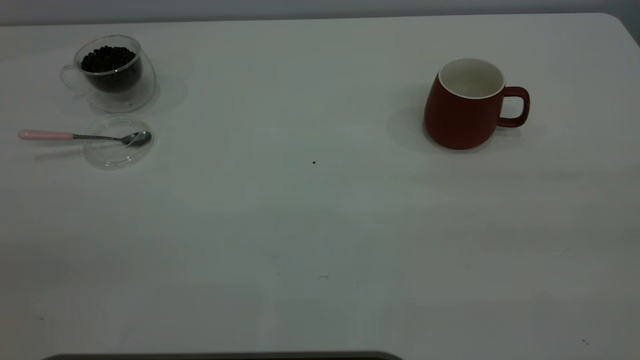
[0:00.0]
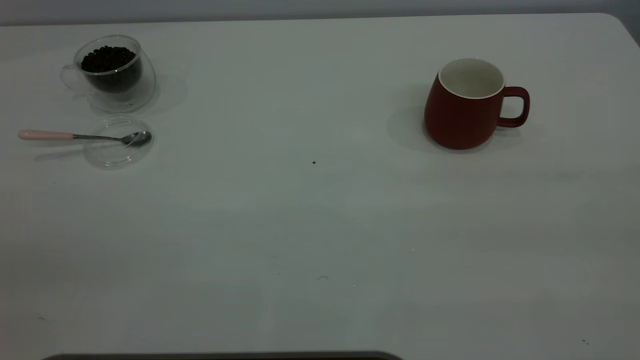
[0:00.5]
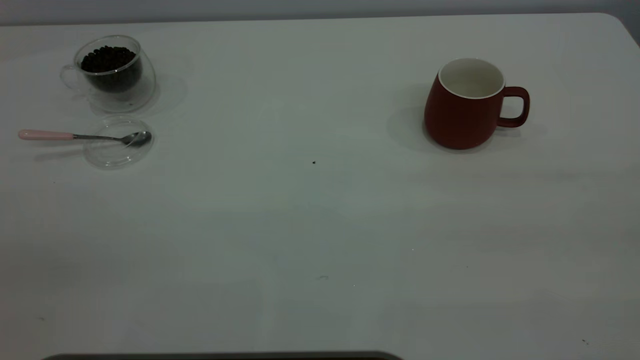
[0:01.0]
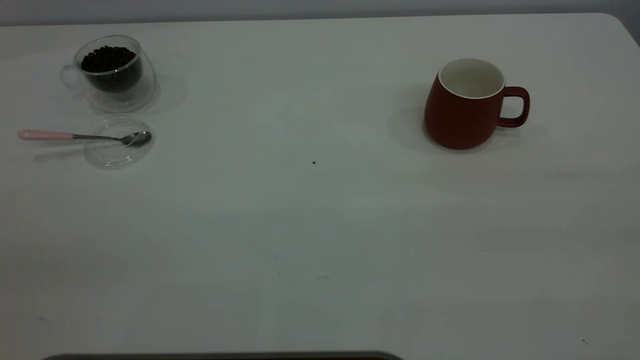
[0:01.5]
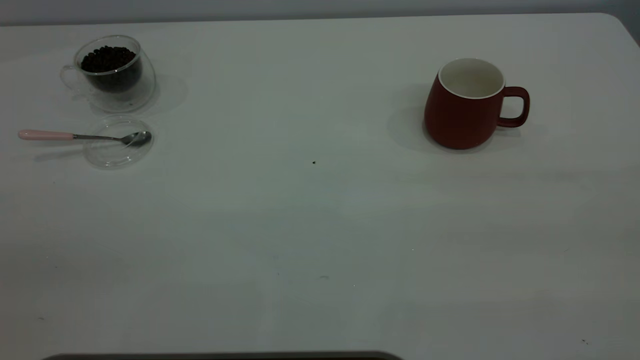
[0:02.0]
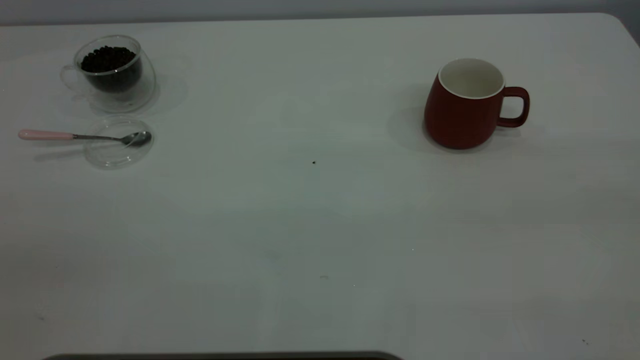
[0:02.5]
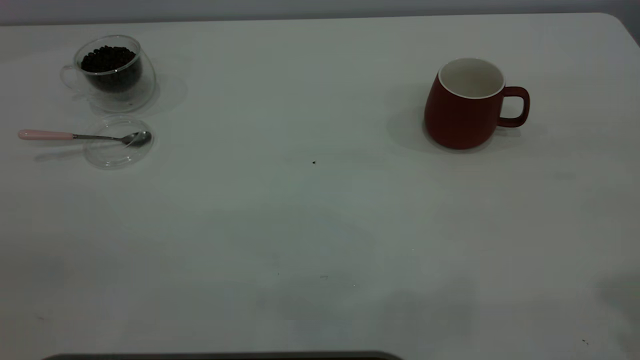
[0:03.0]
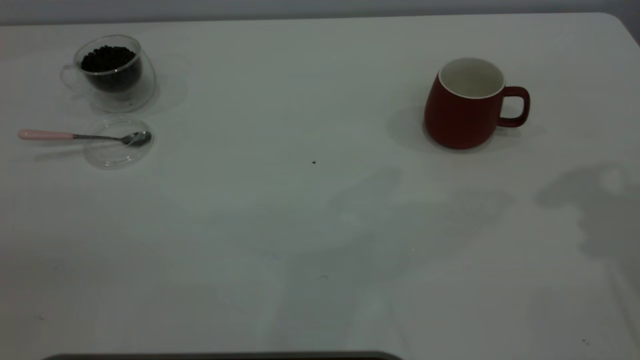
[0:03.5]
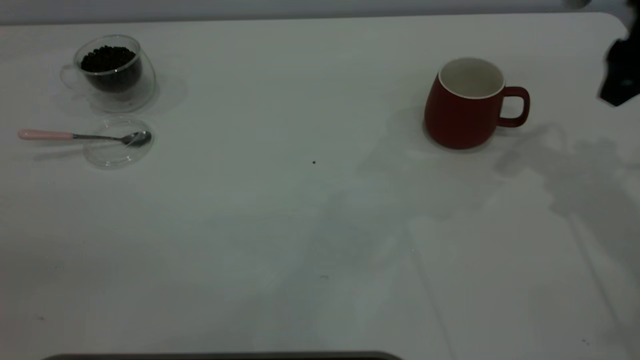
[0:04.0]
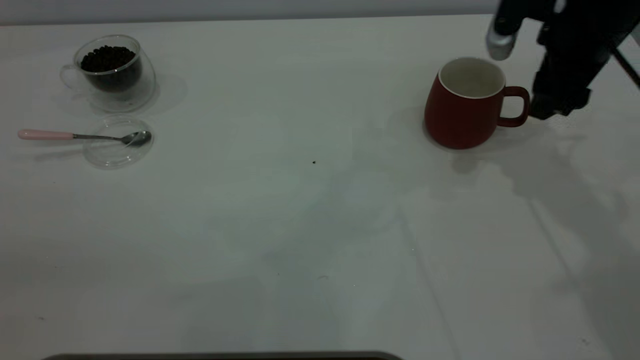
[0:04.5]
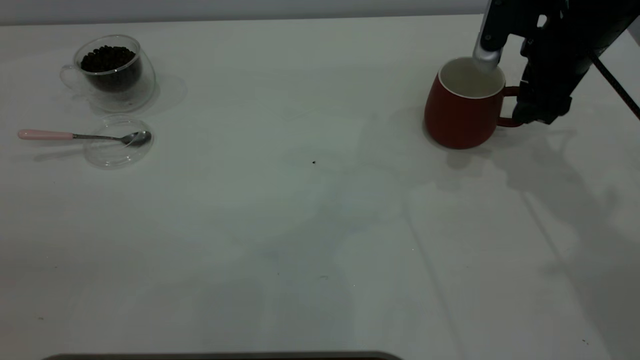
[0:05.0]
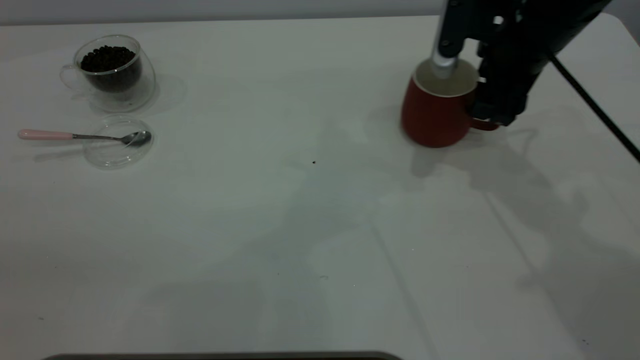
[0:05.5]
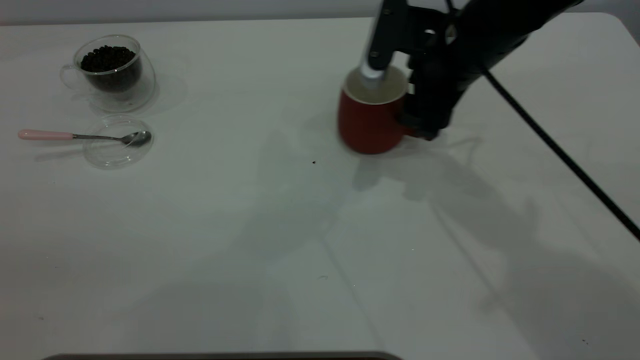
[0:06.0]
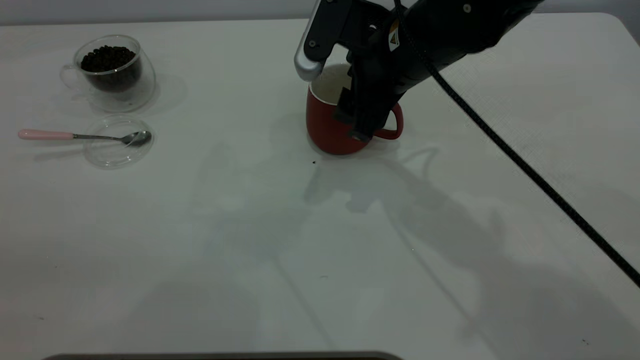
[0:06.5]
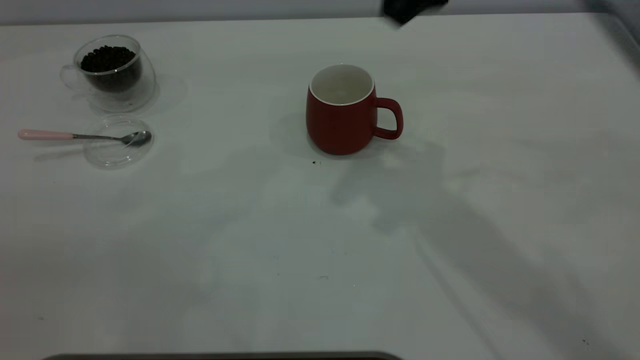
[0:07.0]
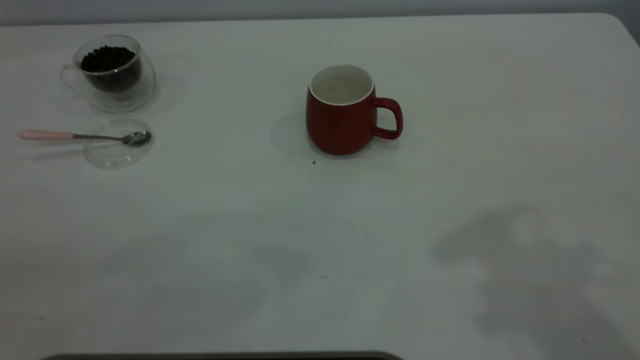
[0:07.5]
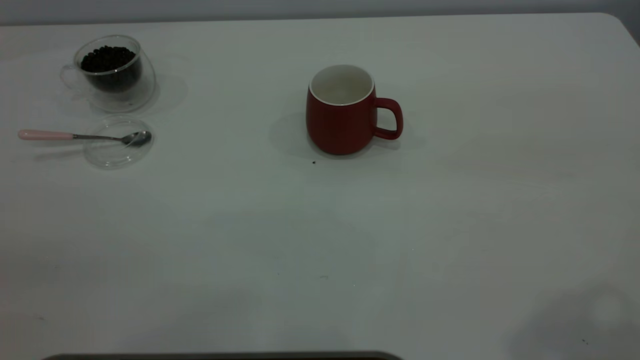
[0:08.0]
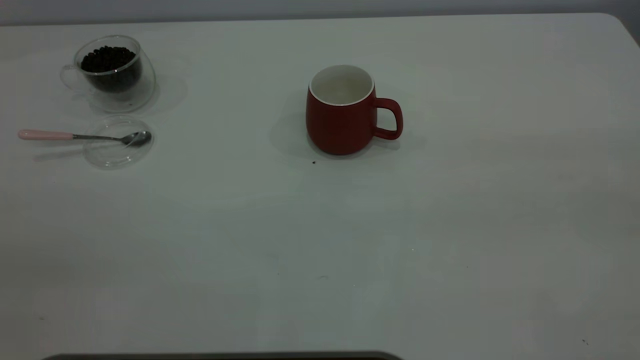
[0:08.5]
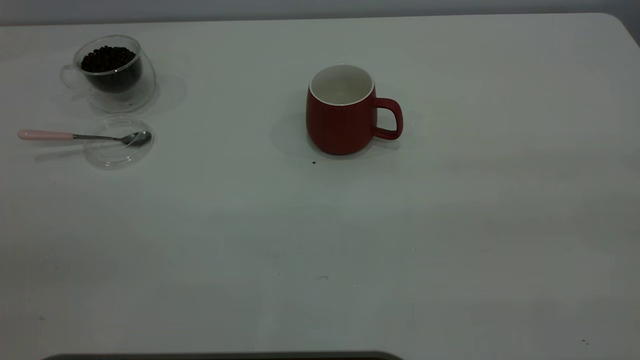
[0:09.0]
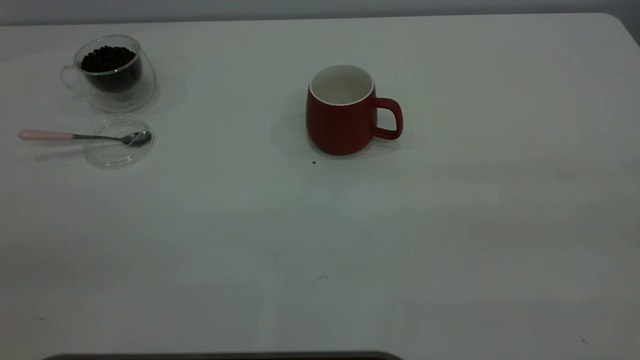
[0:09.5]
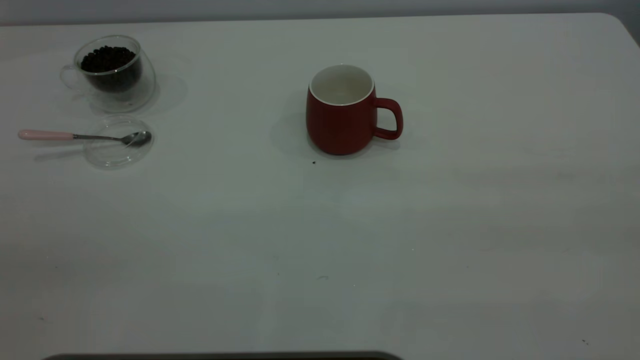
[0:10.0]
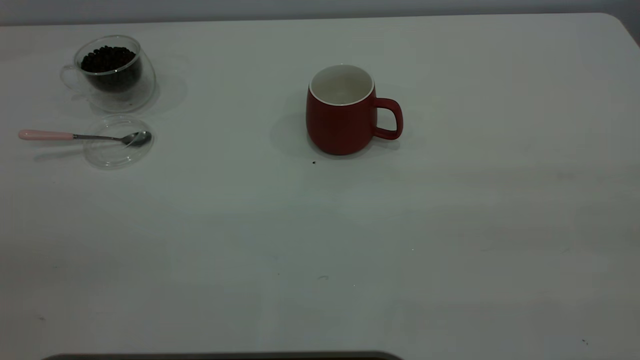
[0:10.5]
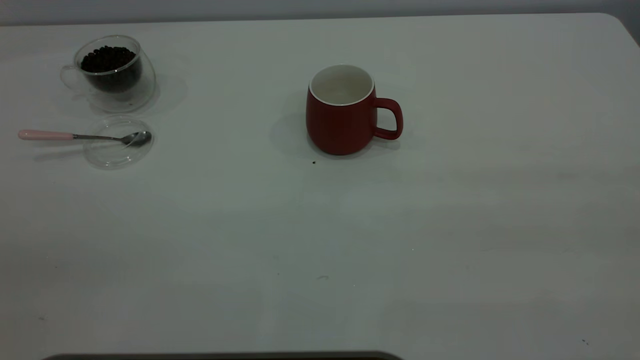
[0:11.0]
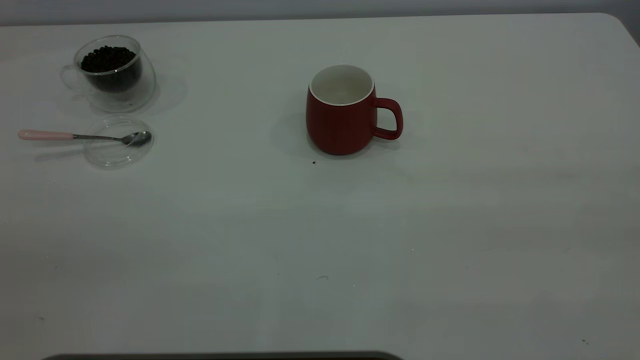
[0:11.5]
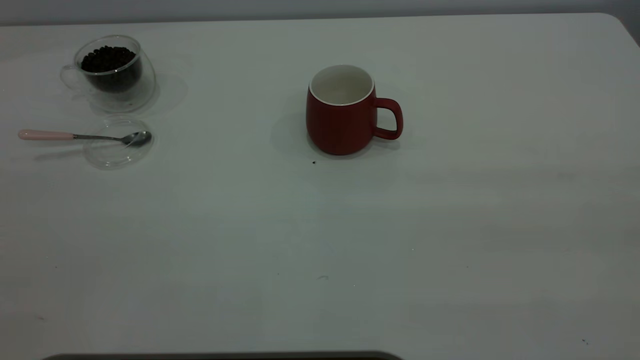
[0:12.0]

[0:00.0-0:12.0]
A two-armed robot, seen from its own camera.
Task of the whole recording: the right gripper place the red cup in the center of the table, the left gripper take the pink spoon from the cup lid and scoop out the coffee beans from the coffee cup and put them into the red cup, the left gripper put the spoon back into the cup lid.
Step, 0:00.0 to 0:06.5: Move the cup to the center of view.
0:00.0 to 0:02.0: Both grippers stay about where they are.
0:02.0 to 0:04.0: The right gripper travels forward and downward by approximately 40 cm, and opens its fingers.
0:04.0 to 0:06.0: The right gripper moves to the left and downward, some 20 cm.
0:06.0 to 0:08.0: The right gripper shifts approximately 40 cm upward, backward and to the right.

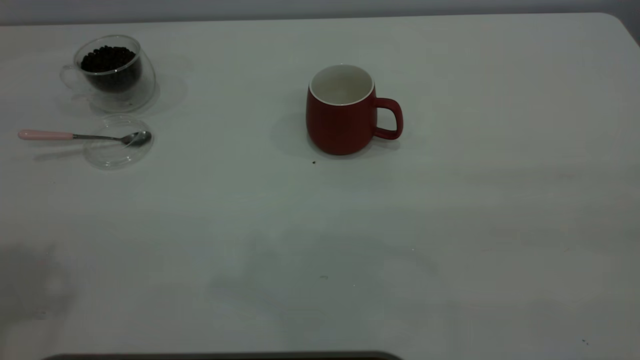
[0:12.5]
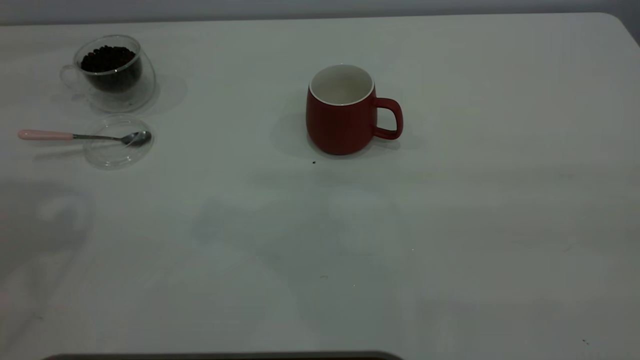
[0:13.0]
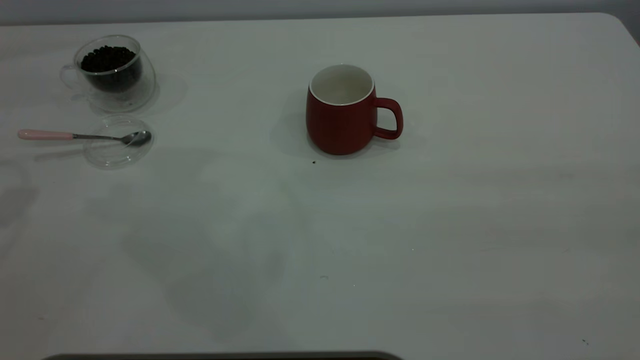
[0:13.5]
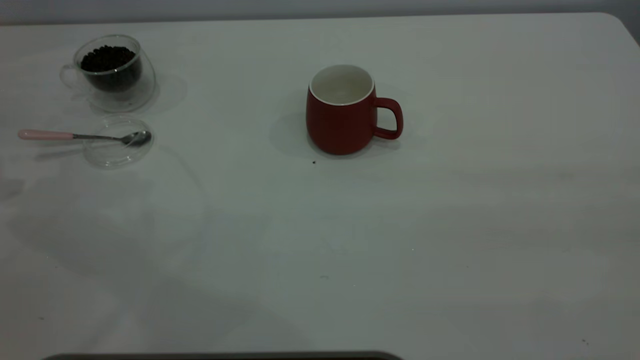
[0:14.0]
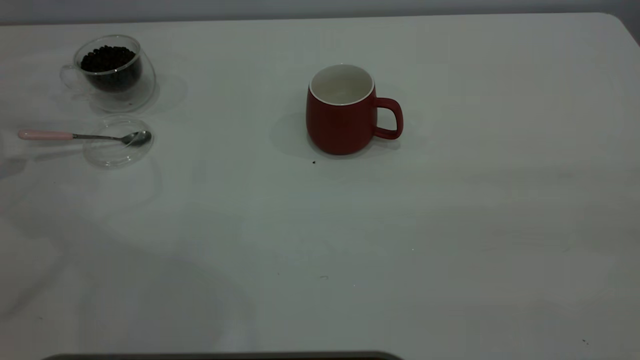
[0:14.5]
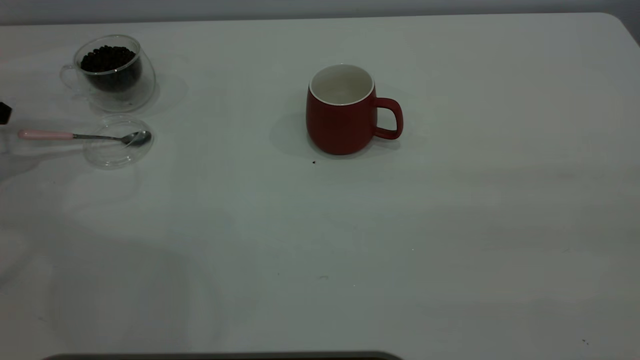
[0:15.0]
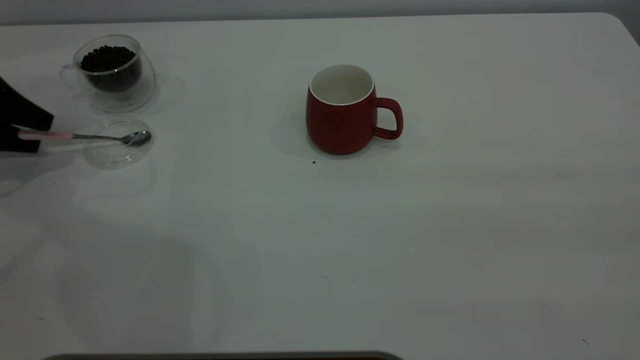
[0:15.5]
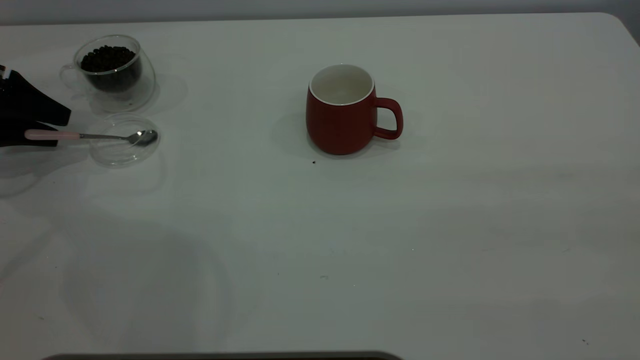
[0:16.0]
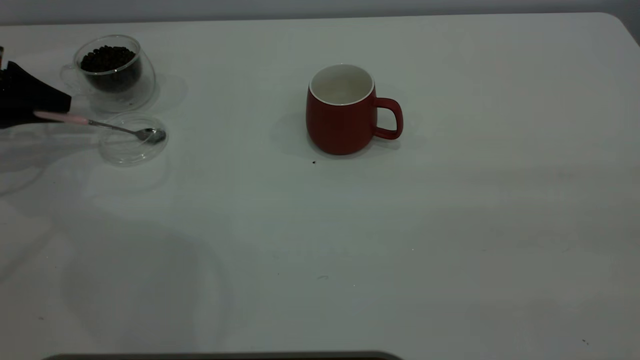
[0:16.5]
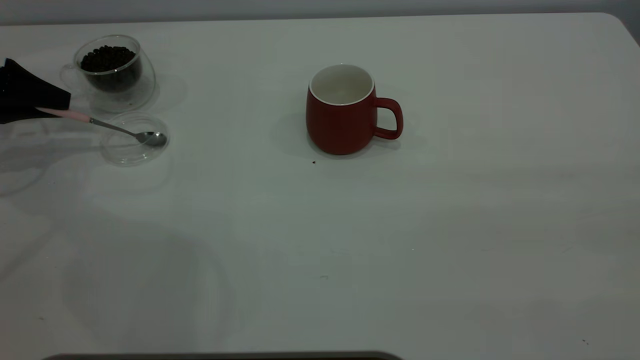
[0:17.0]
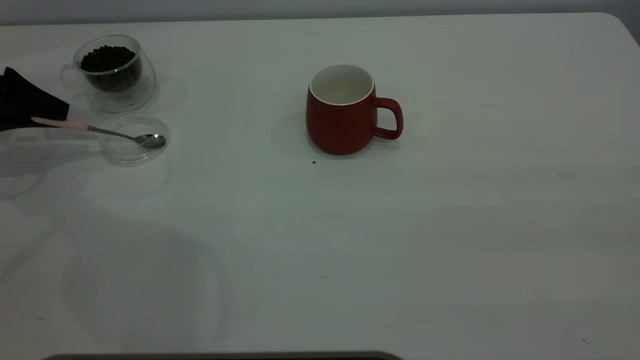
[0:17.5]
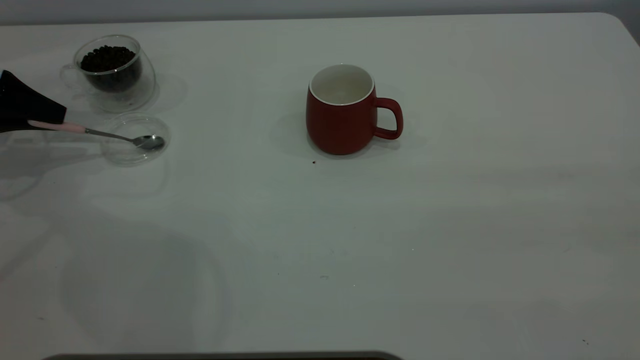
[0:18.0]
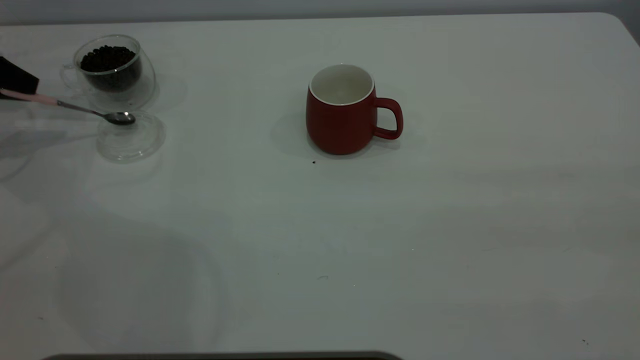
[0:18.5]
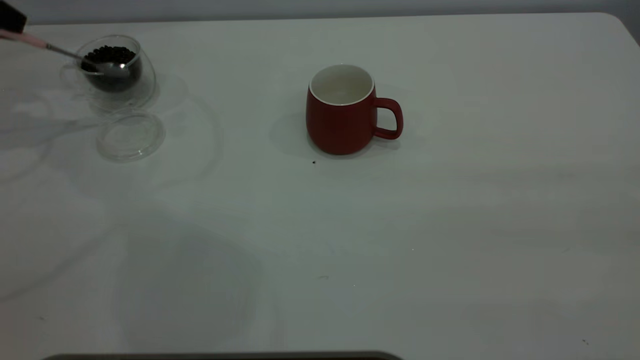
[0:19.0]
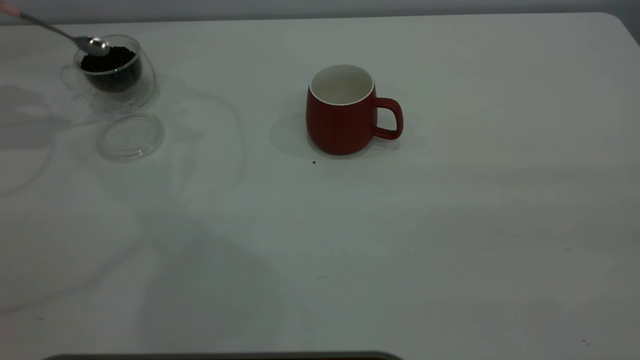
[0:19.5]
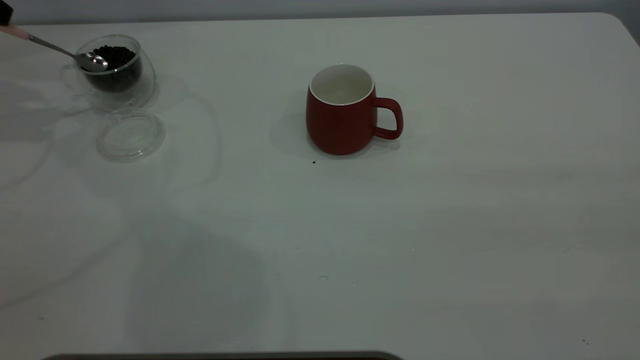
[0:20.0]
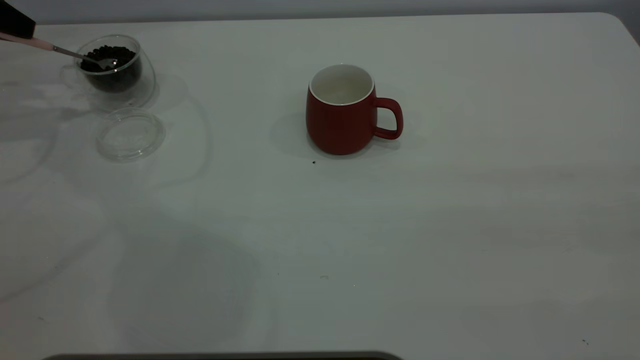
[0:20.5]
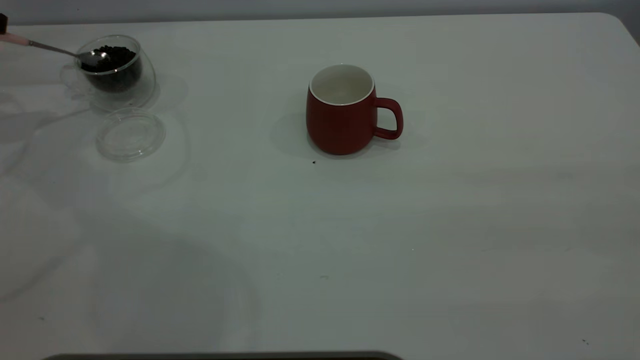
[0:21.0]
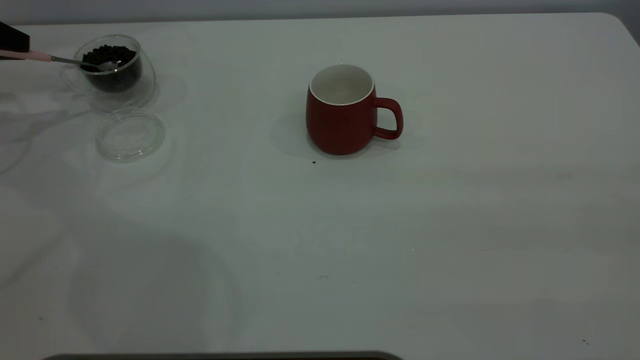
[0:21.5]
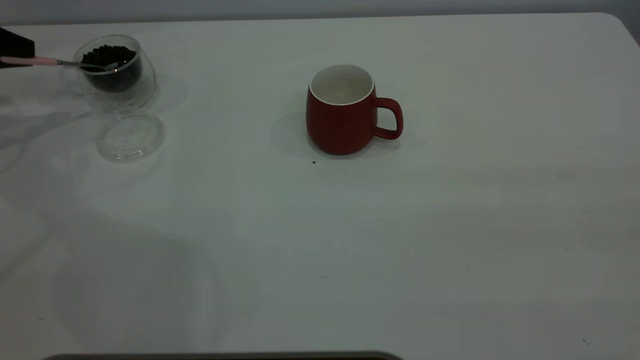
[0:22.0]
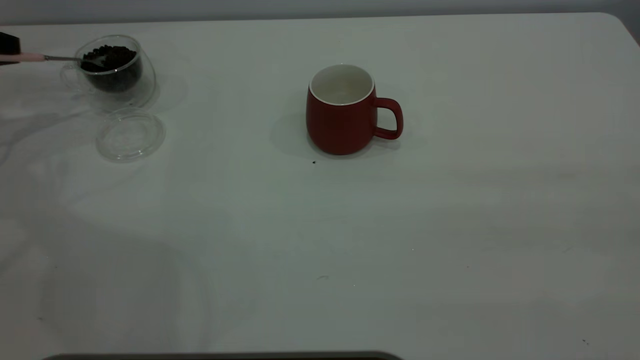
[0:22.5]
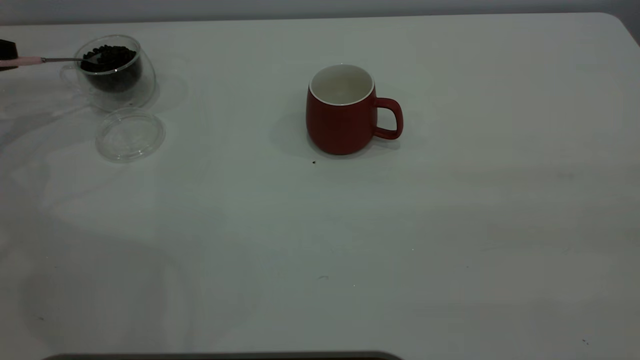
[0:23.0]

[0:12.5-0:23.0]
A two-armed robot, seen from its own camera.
Task of the whole recording: the right gripper place the red cup in the center of the table, the left gripper take the pink spoon from the cup lid and scoop out the coffee beans from the coffee cup and put them into the red cup, the left gripper put the spoon back into the cup lid.
Step, 0:12.5 to 0:18.5: Pick up the spoon.
0:14.5 to 0:16.5: The left gripper is displaced downward and to the right by about 10 cm, and closes.
0:16.5 to 0:19.0: The left gripper goes about 10 cm upward.
